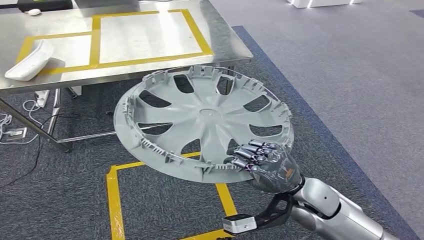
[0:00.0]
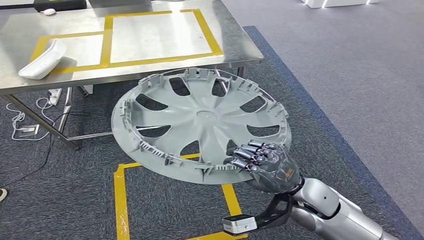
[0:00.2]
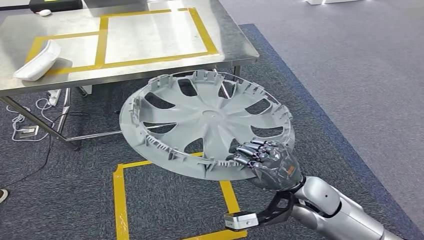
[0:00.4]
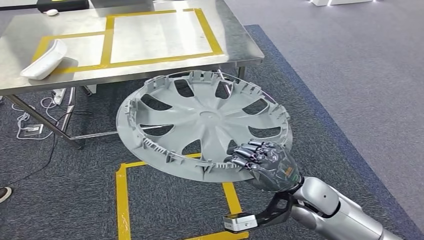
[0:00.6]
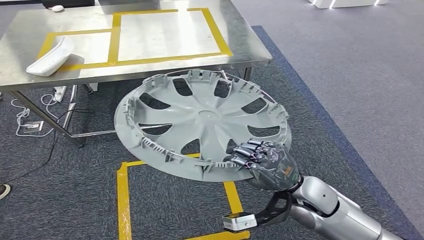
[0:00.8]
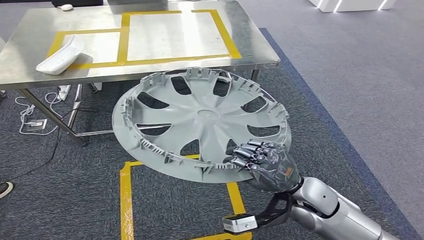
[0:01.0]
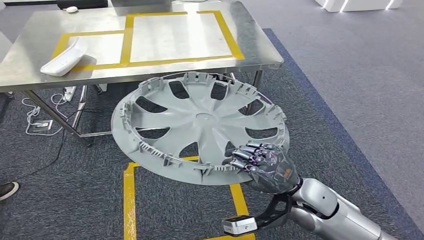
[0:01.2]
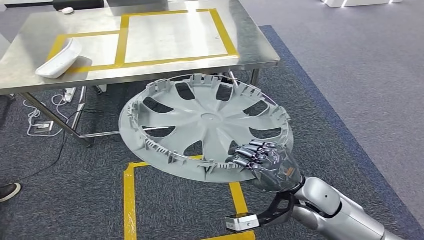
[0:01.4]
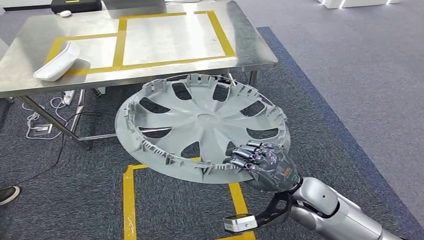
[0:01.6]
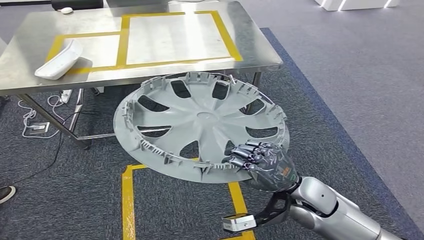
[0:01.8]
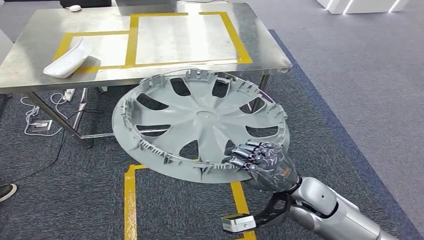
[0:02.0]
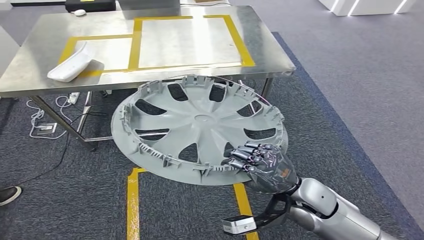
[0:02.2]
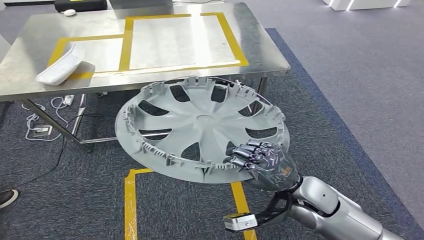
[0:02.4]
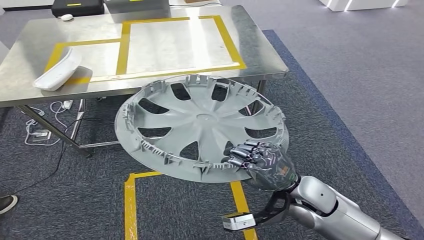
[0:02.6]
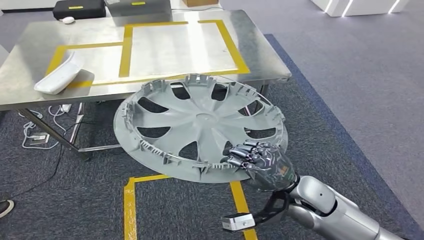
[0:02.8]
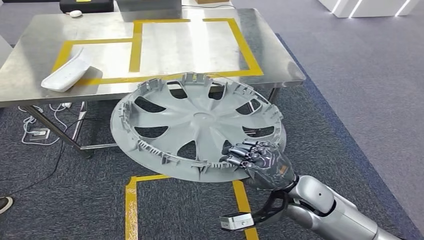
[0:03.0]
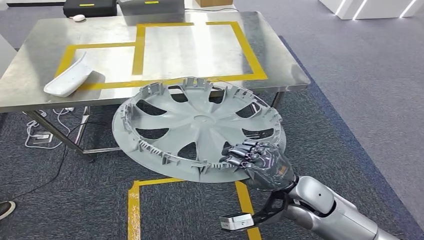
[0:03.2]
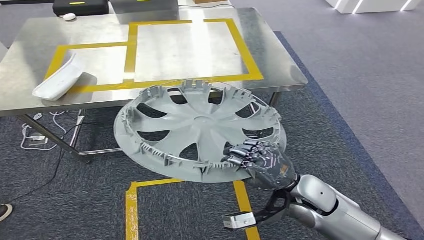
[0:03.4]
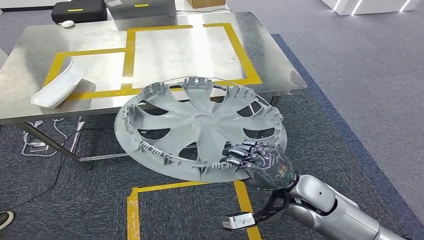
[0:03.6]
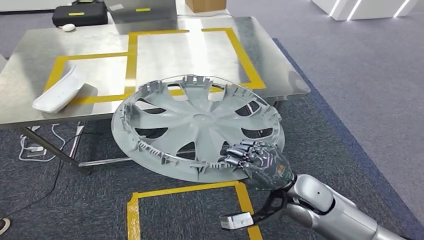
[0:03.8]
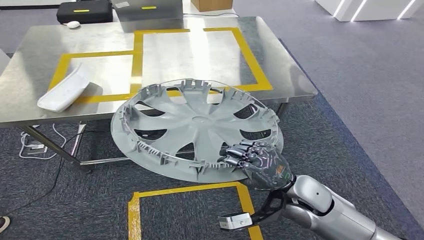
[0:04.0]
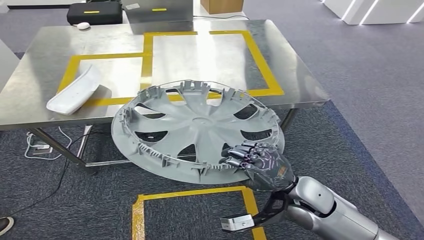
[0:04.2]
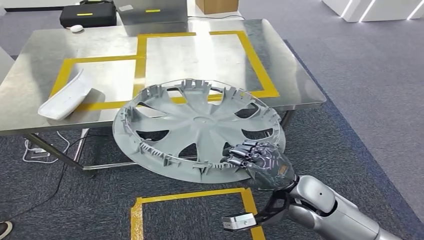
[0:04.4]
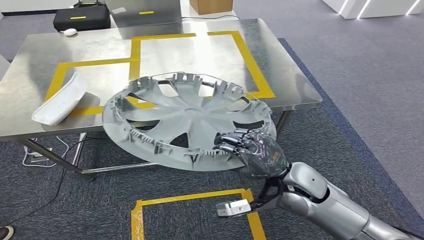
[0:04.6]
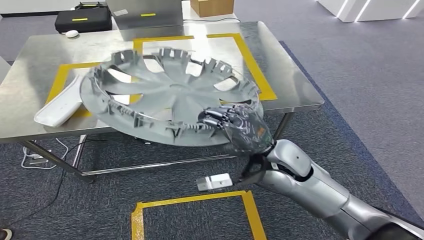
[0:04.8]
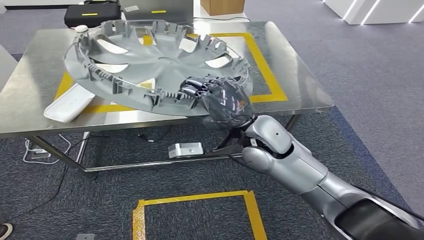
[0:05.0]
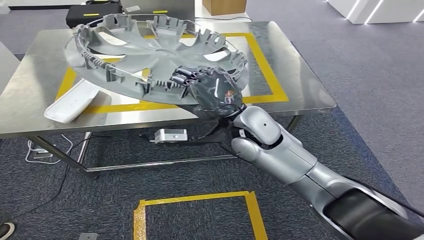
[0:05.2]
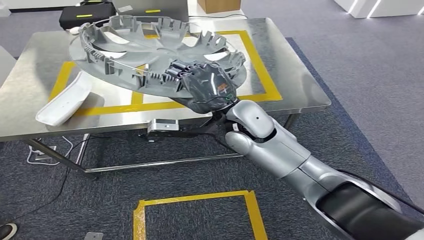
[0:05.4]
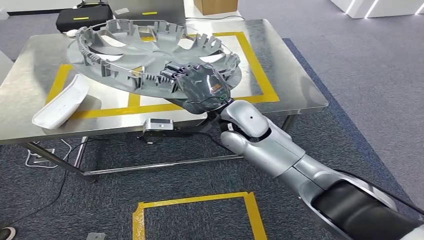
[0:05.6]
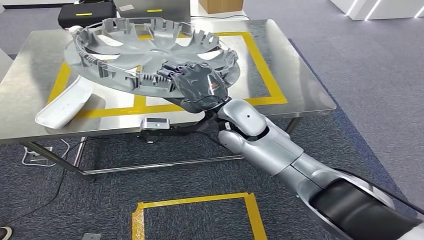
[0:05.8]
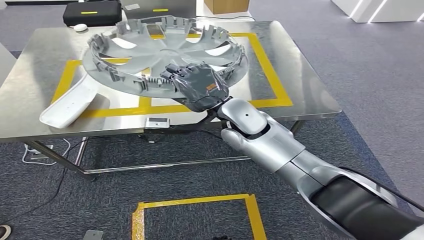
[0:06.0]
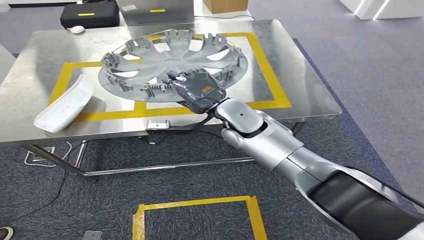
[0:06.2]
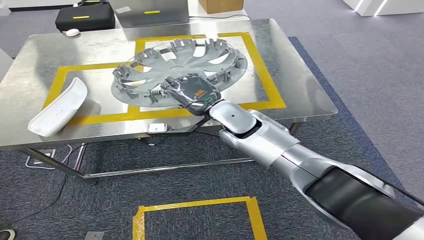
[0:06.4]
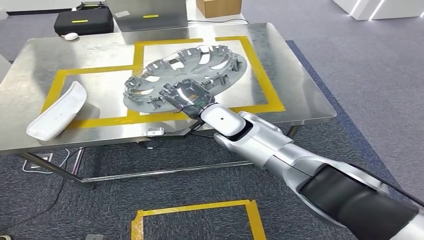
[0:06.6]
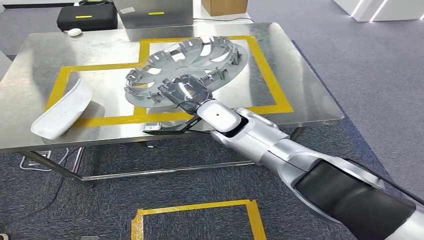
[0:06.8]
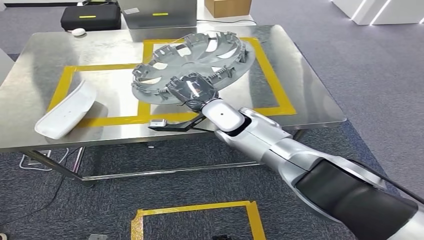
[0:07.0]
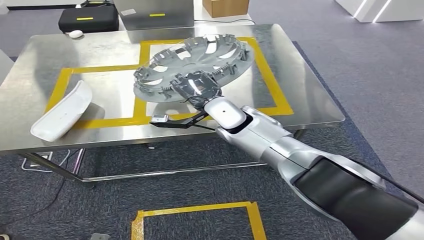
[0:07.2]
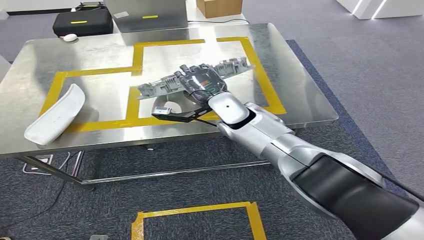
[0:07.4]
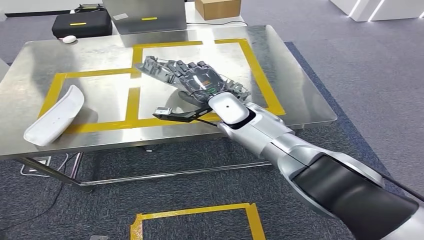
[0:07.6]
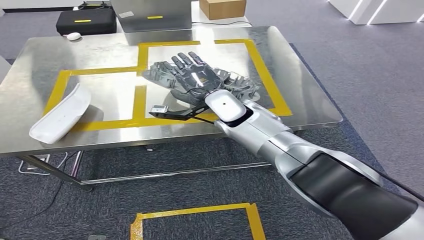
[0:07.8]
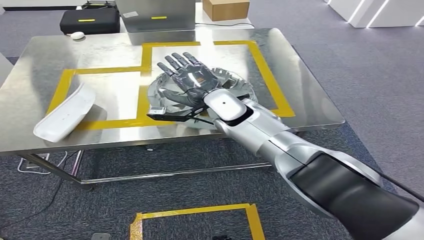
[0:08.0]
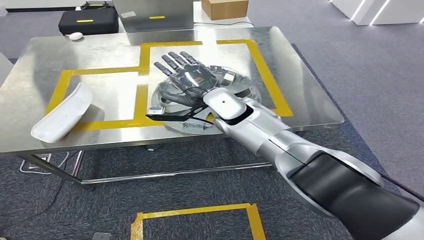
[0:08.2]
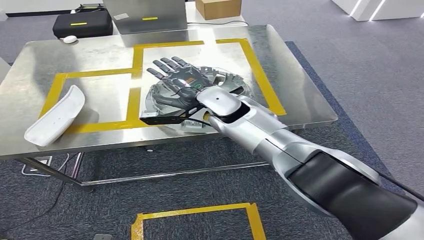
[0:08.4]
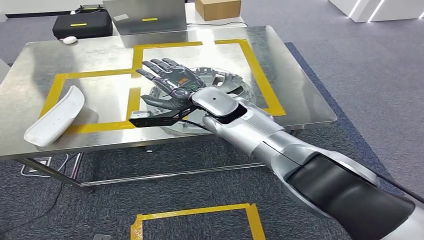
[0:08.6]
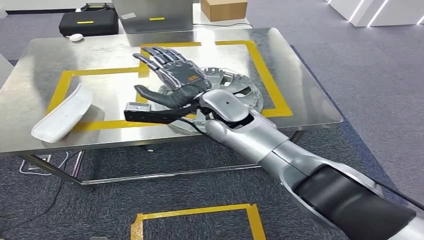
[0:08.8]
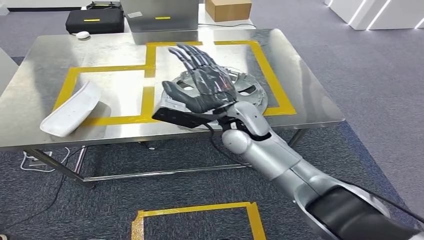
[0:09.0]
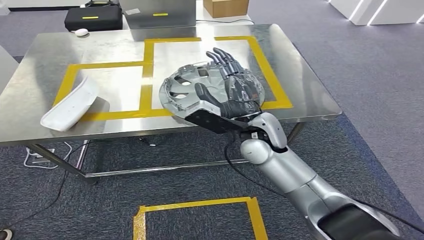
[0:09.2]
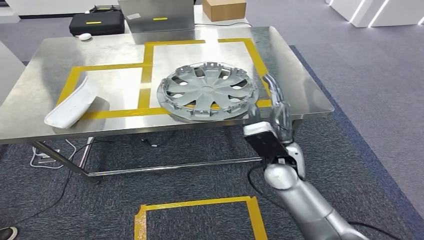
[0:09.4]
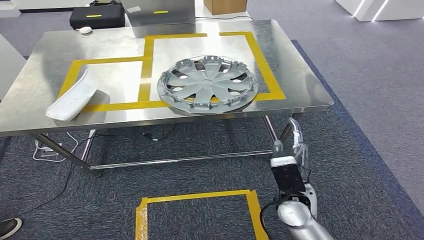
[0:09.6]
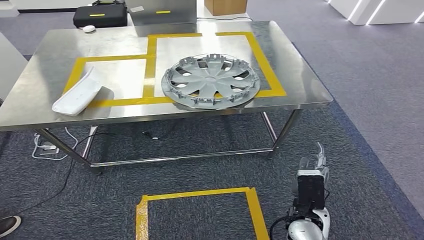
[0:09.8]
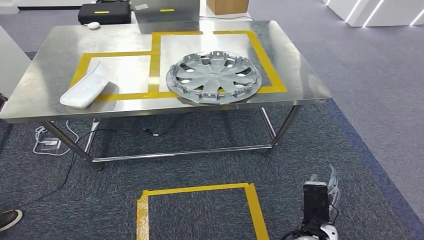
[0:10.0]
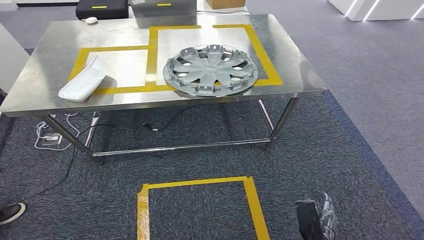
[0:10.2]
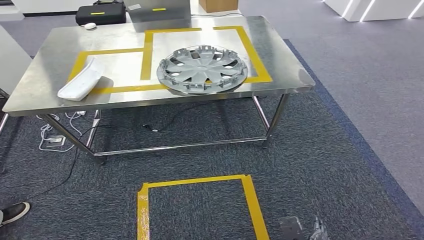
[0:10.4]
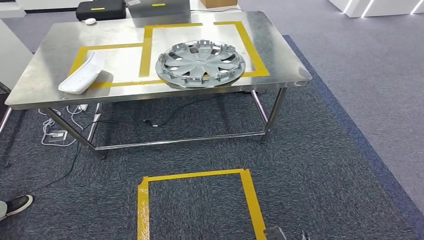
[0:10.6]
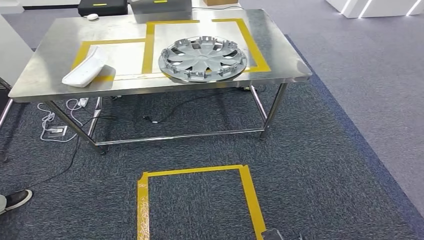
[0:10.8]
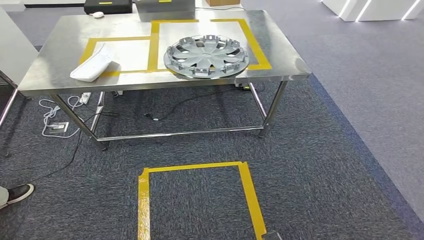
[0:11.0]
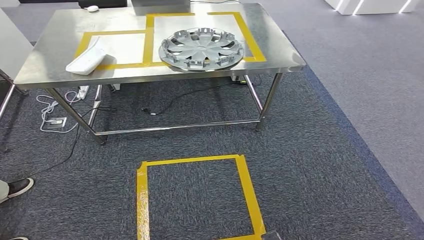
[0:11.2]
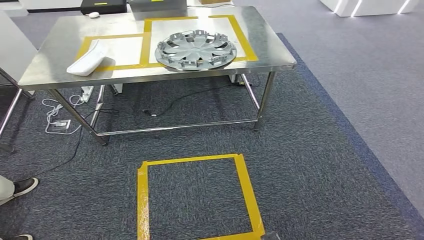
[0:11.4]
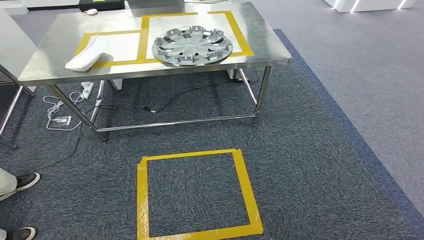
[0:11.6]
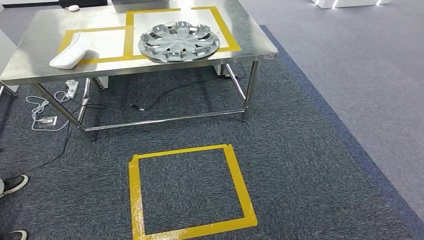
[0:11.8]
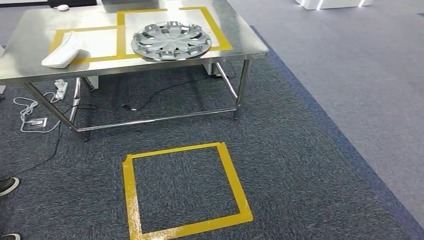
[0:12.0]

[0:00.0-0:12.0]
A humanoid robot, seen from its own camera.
Step, 0:00.0 to 0:09.4: Insert the small parts into the corresponding holes on the workbench.

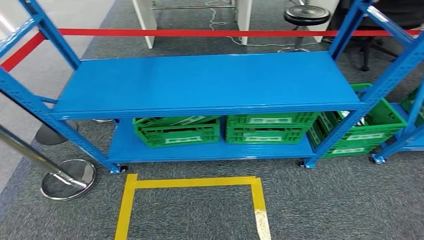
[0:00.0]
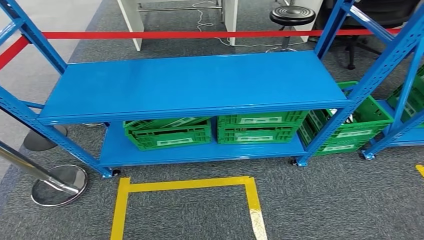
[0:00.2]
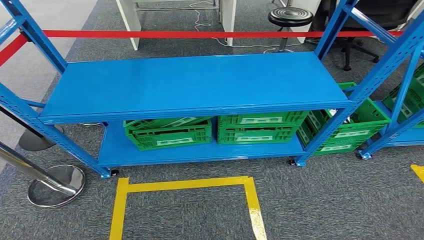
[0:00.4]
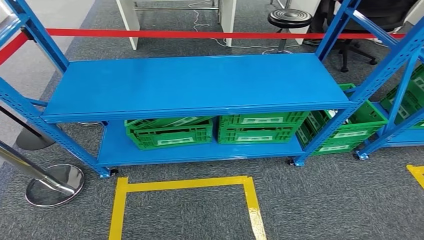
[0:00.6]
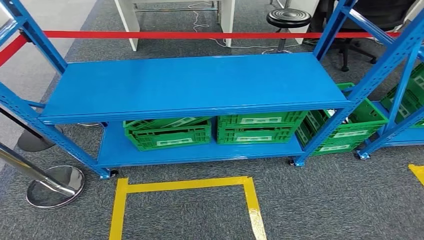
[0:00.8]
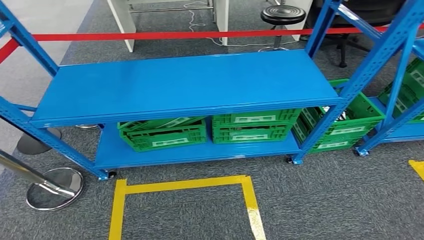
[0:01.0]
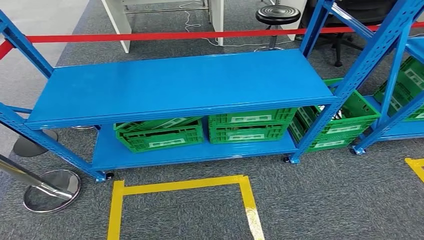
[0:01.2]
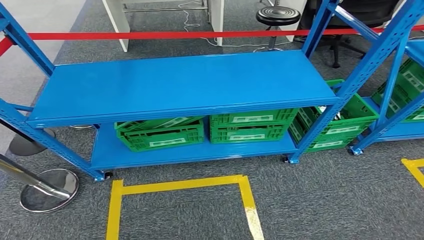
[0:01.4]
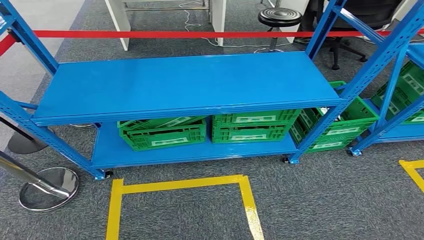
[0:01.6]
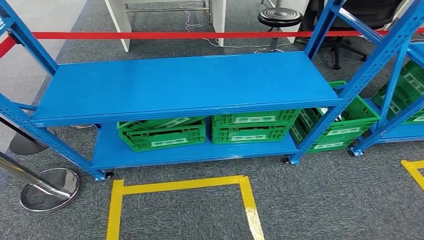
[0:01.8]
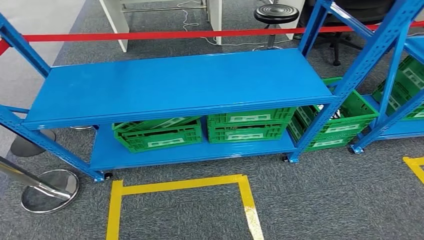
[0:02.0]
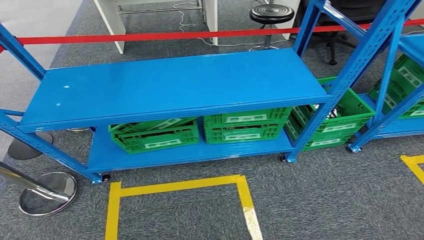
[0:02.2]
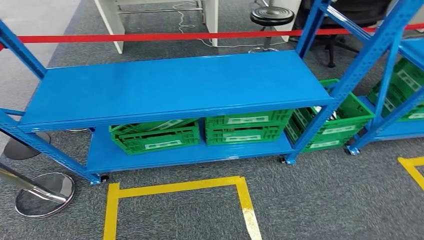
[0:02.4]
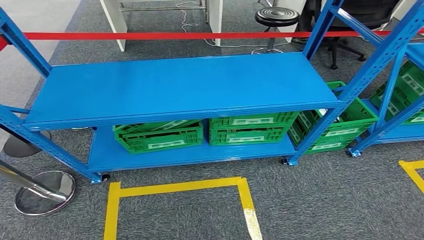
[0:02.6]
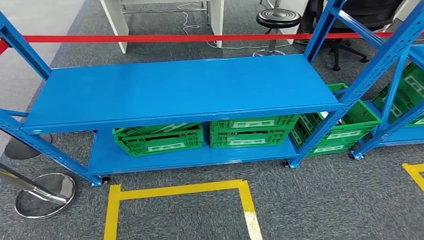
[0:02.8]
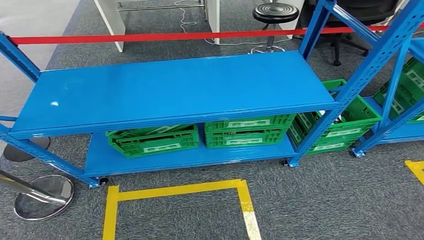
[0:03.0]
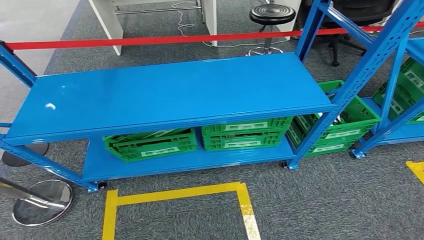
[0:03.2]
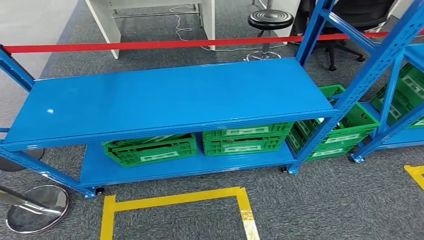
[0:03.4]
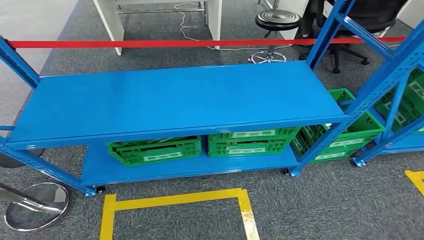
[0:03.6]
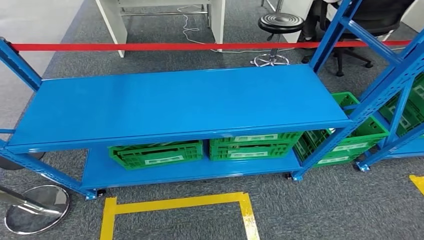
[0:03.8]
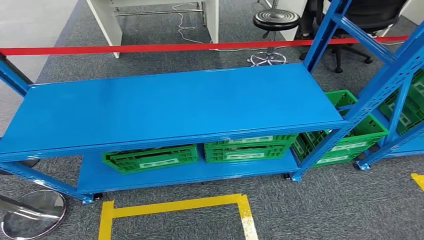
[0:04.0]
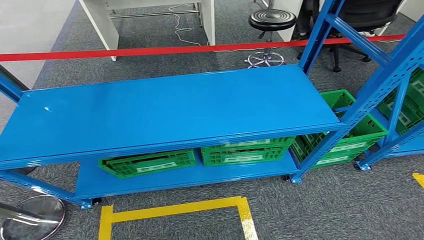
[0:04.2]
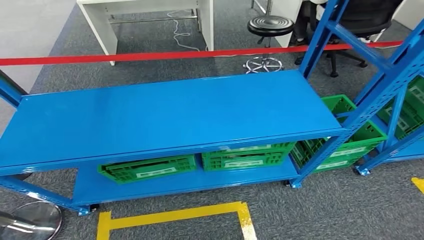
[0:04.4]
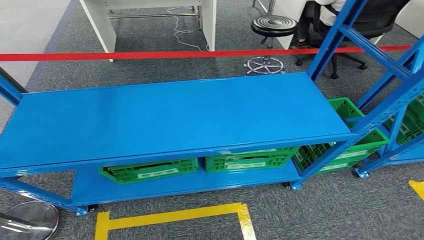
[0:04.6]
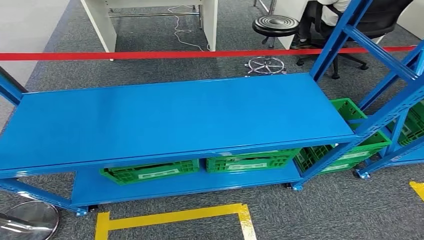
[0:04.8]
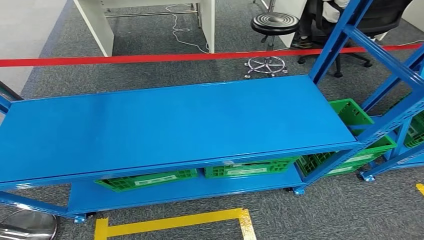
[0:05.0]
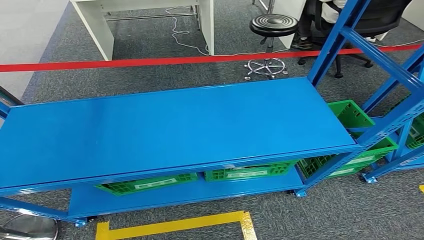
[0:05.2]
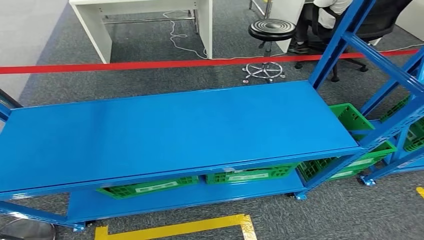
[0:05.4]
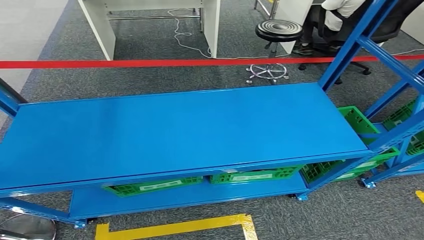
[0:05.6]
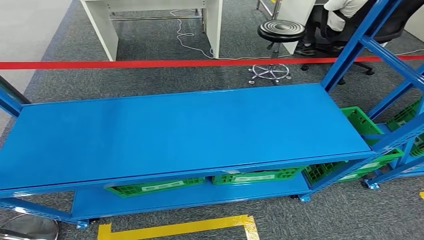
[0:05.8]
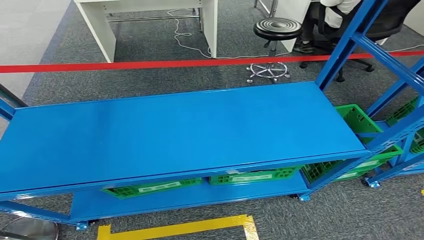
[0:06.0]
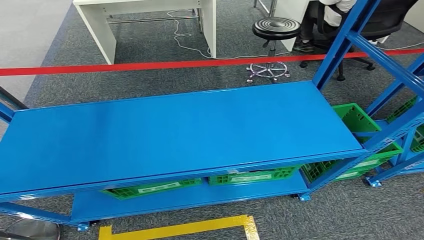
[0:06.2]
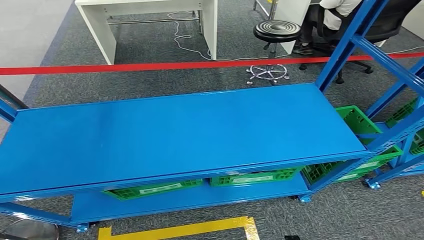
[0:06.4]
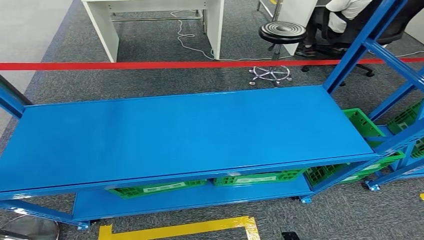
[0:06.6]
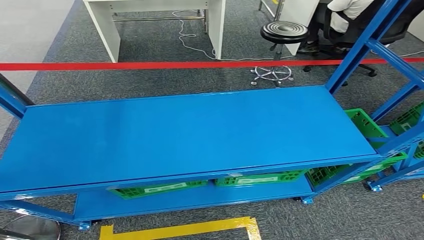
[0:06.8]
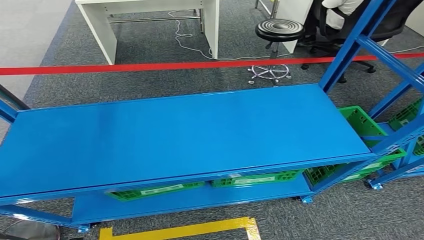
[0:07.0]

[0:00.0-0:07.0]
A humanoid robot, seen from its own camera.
Step, 0:00.0 to 0:07.0: Move to the initial position at the workbench.
0:05.6 to 0:07.0: The left hand heads forward, covering some 5 cm. The right hand moves forward and backward over approximately 10 cm, changing direction 2 times.
